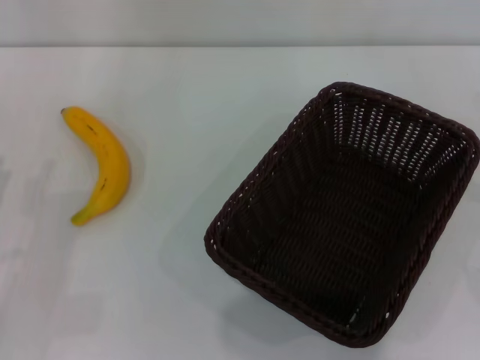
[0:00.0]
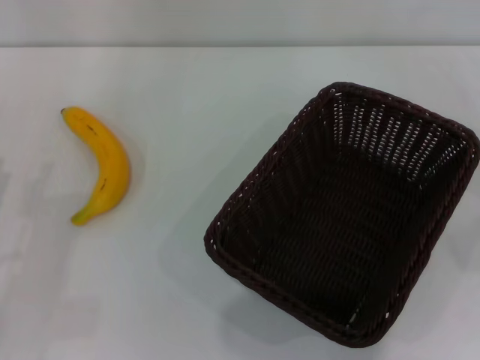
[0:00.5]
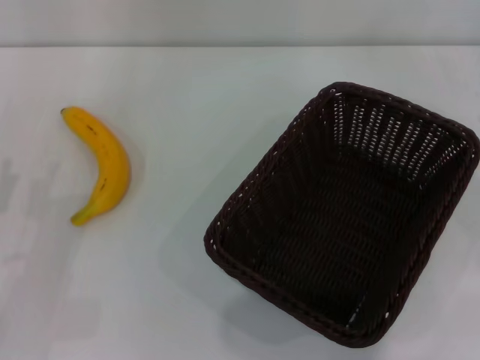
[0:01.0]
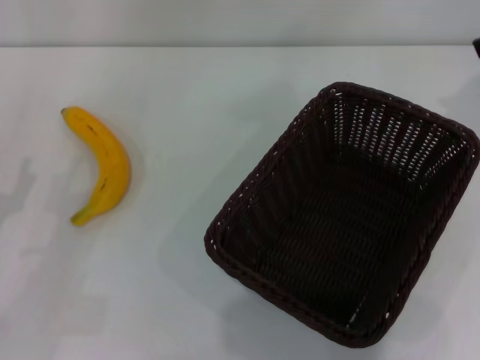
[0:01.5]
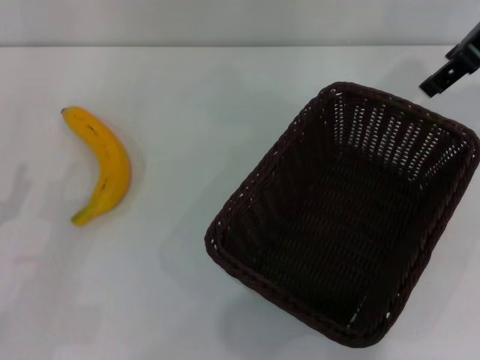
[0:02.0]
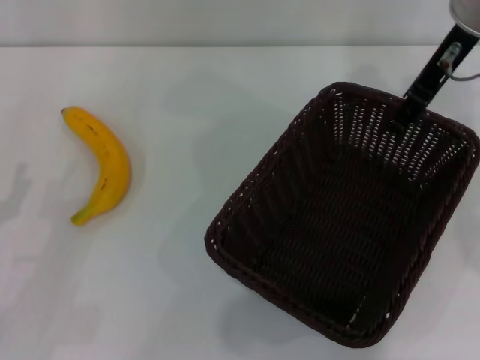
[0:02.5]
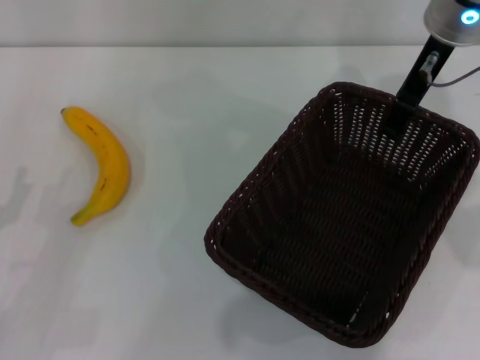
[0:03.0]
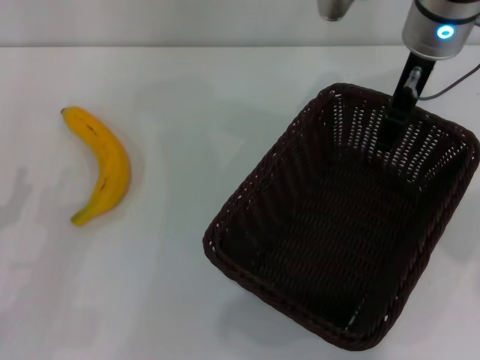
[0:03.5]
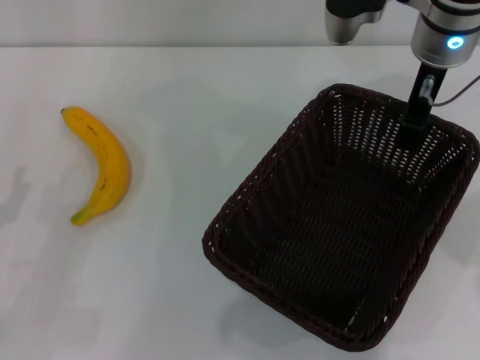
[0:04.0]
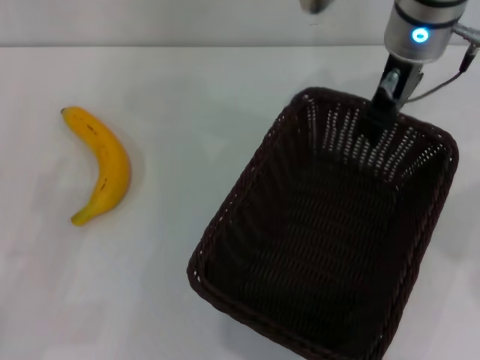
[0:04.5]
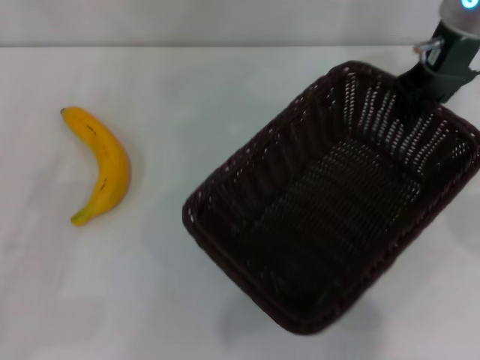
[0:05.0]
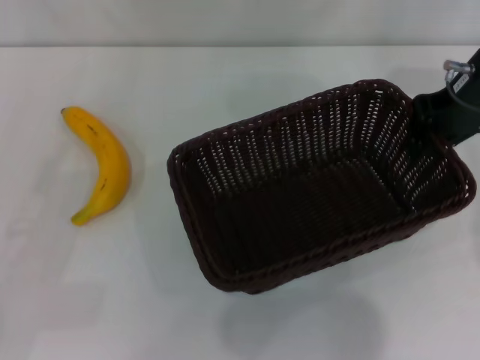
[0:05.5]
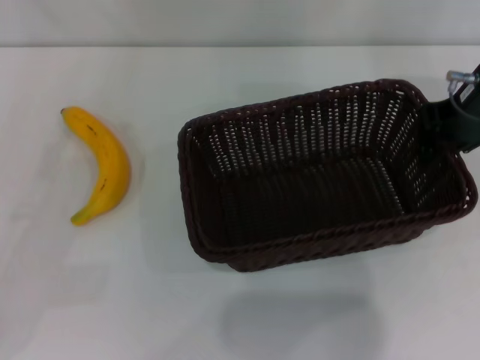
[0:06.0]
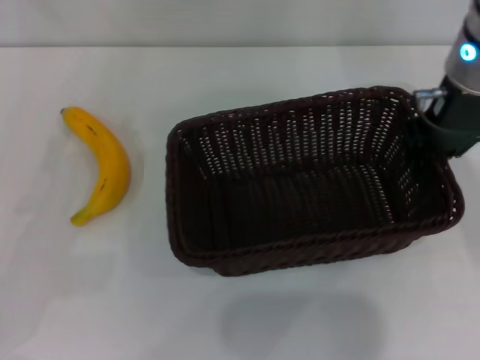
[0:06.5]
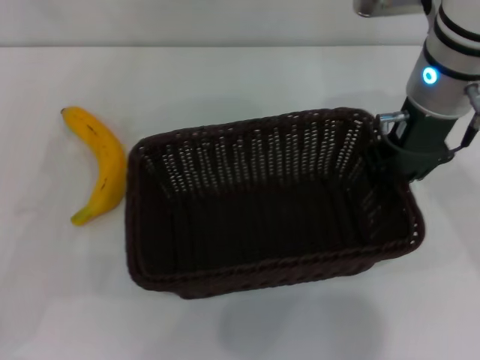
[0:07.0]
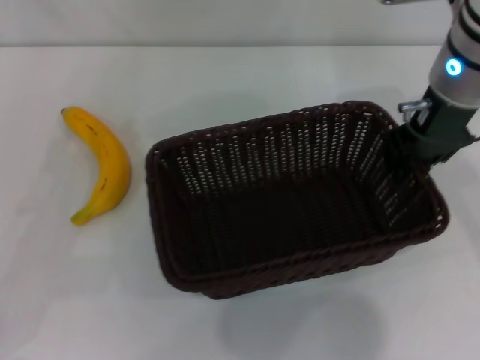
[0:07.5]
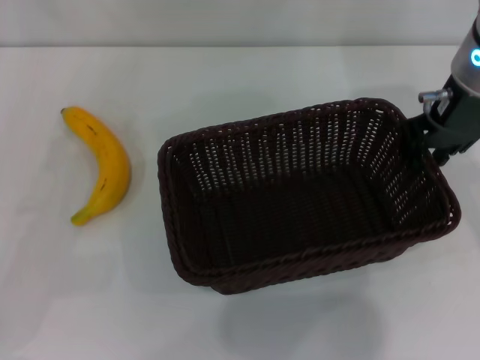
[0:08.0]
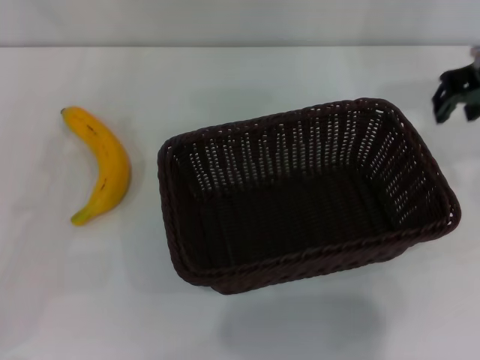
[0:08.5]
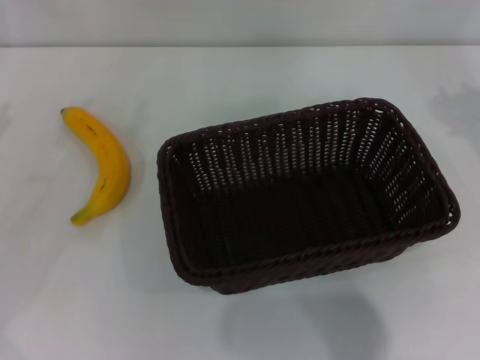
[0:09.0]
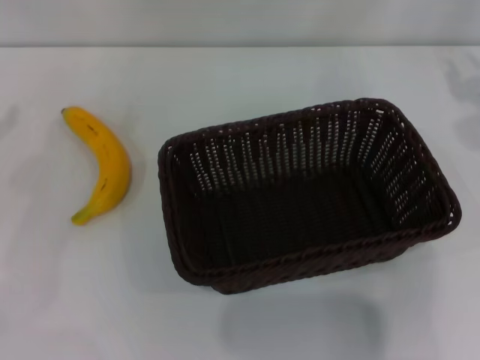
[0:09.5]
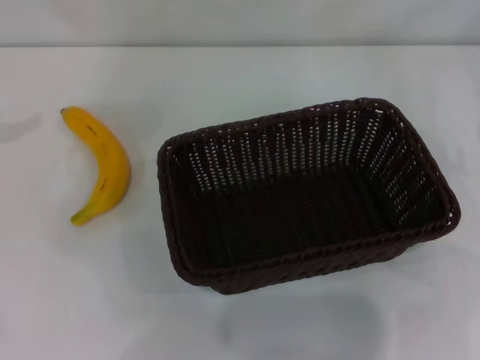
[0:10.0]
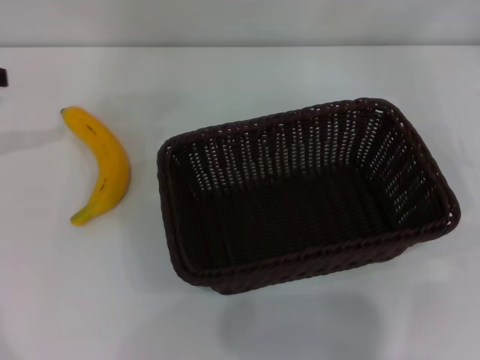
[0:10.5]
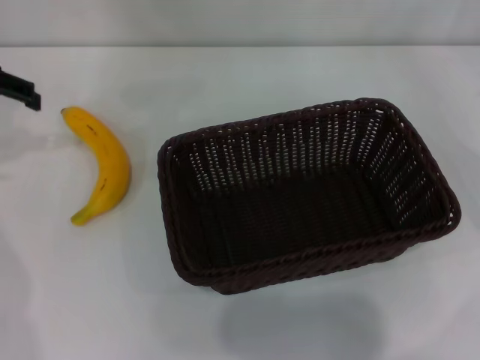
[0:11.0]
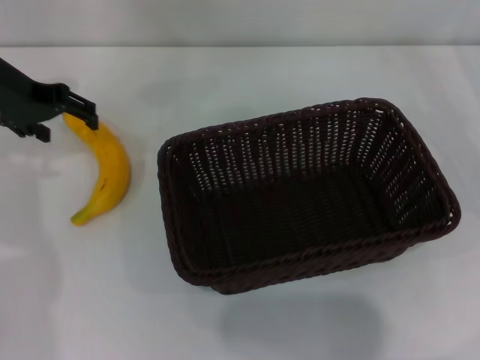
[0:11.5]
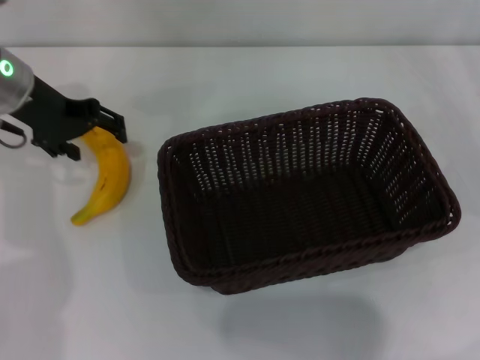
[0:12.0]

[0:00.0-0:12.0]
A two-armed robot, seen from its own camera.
Step, 0:00.0 to 0:04.5: Pick up the dark basket with the right gripper.
Step, 0:05.5 to 0:08.0: Place the dark basket in the center of view with the right gripper.
0:00.0 to 0:02.0: The right gripper shifts some 35 cm upward, forward and to the left.
0:02.0 to 0:04.0: The right gripper heads to the left and downward, covering roughly 10 cm.
0:04.0 to 0:06.0: The left gripper goes approximately 10 cm upward and forward. The right gripper goes approximately 5 cm to the right, and closes its fingers.
0:08.0 to 0:10.0: The right gripper goes approximately 20 cm to the right.
0:10.0 to 0:12.0: The left gripper is displaced to the right, downward and forward by roughly 20 cm.

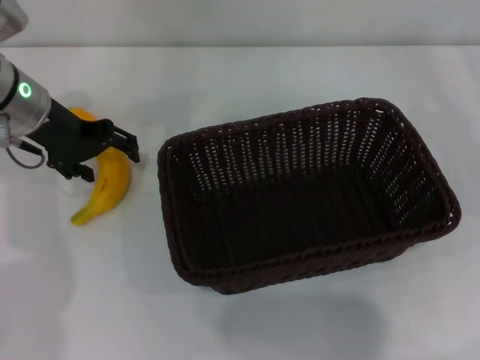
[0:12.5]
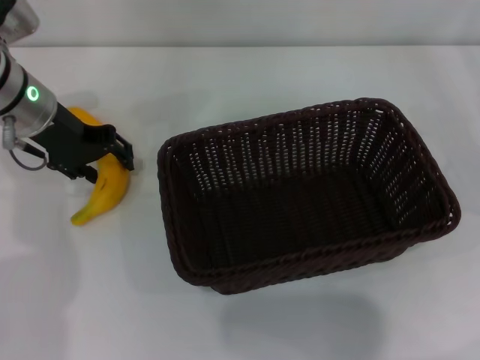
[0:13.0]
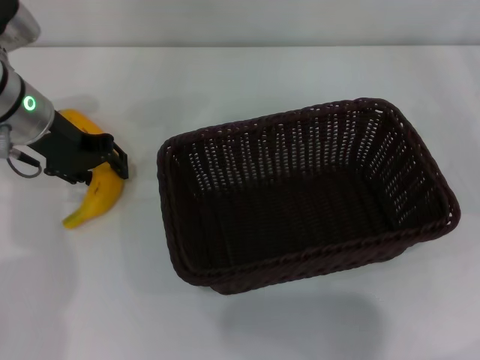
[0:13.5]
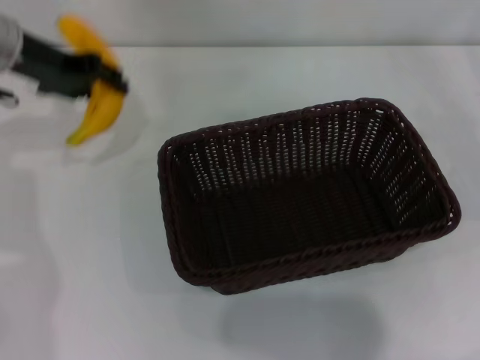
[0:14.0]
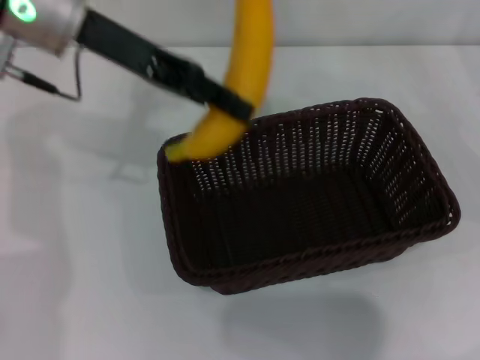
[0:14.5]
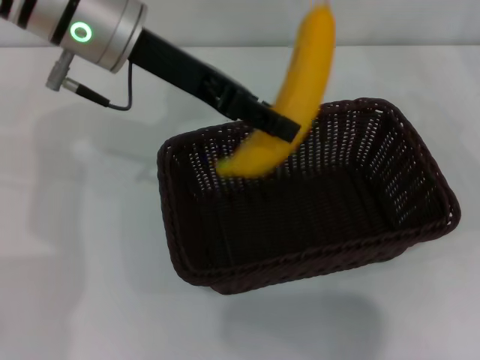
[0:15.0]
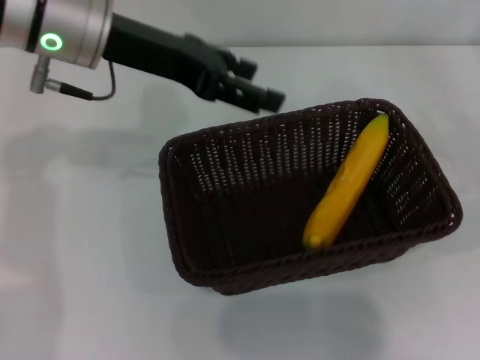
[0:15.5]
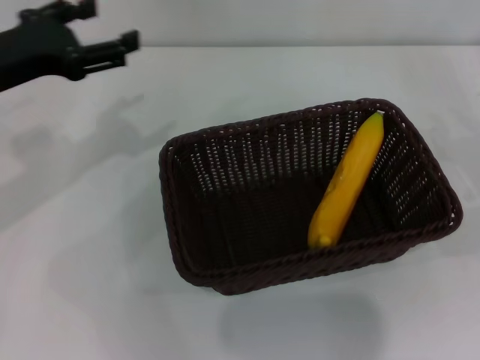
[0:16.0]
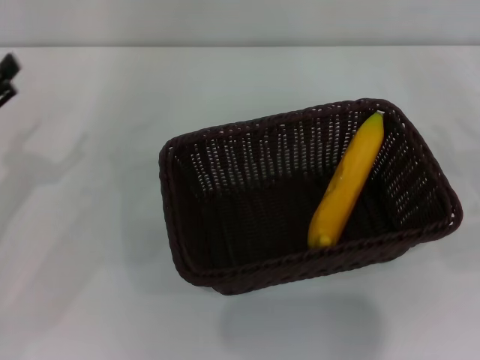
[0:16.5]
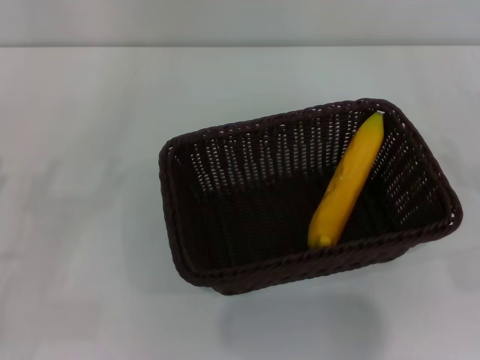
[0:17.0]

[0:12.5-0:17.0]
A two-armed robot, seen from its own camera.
Step, 0:14.0 to 0:15.5: Place the banana into the dark basket with the left gripper.
0:12.5 to 0:14.5: The left gripper heads upward and to the right, covering about 10 cm, and closes up.
0:14.5 to 0:17.0: The right gripper shifts roughly 10 cm backward and downward, and opens its fingers; the left gripper moves downward, backward and to the left, approximately 35 cm, and opens up.

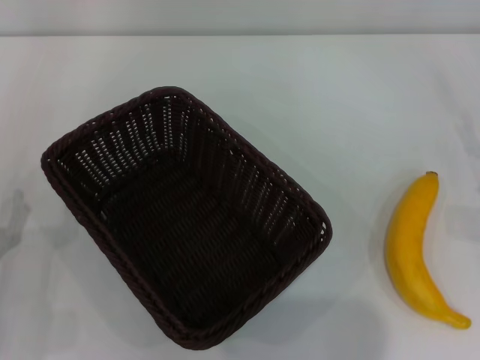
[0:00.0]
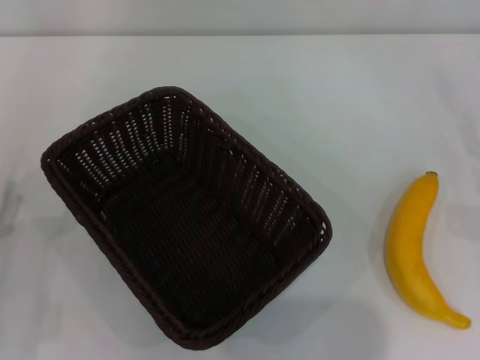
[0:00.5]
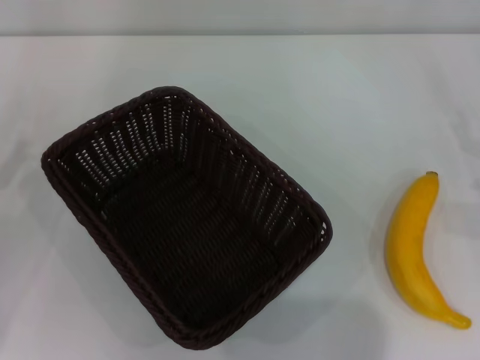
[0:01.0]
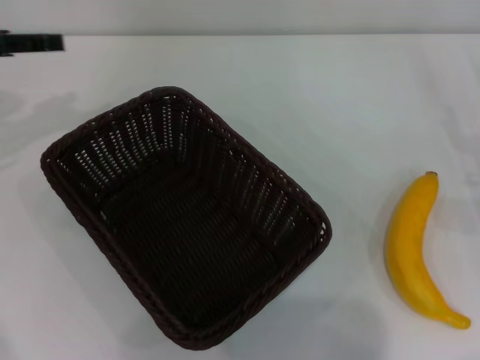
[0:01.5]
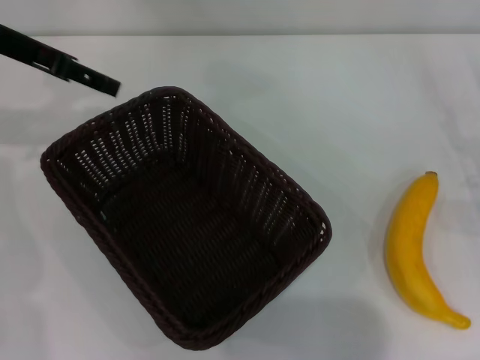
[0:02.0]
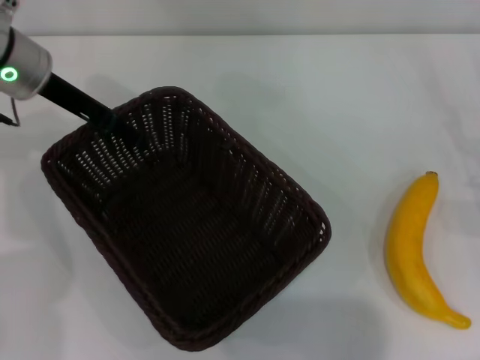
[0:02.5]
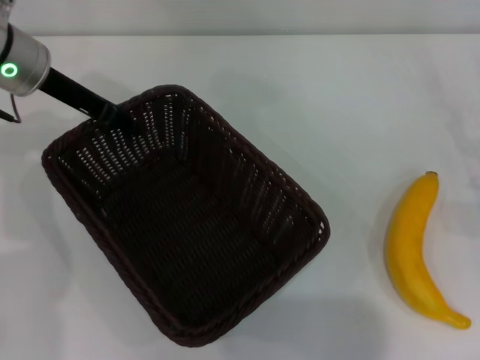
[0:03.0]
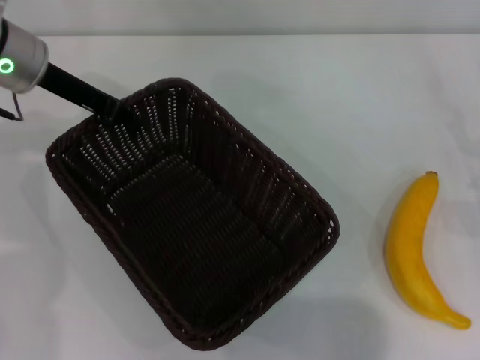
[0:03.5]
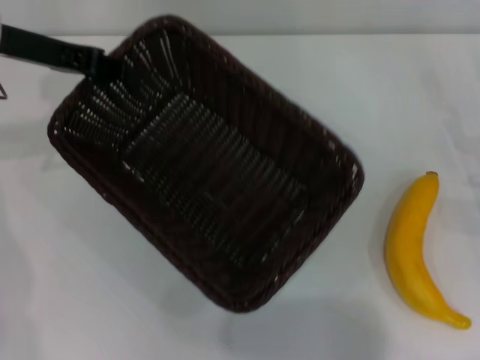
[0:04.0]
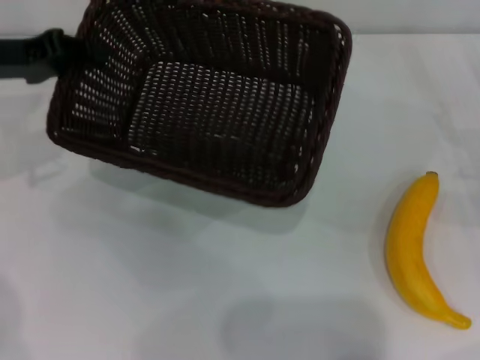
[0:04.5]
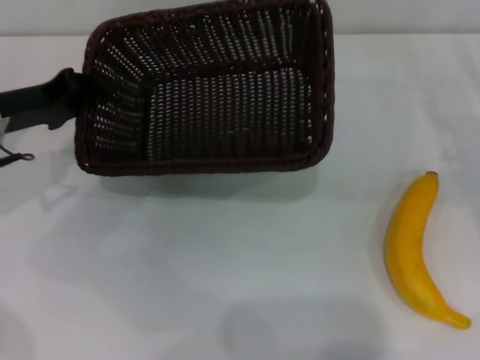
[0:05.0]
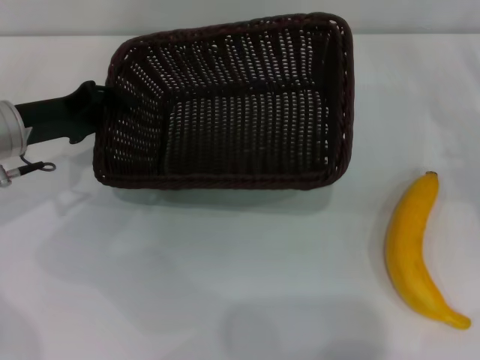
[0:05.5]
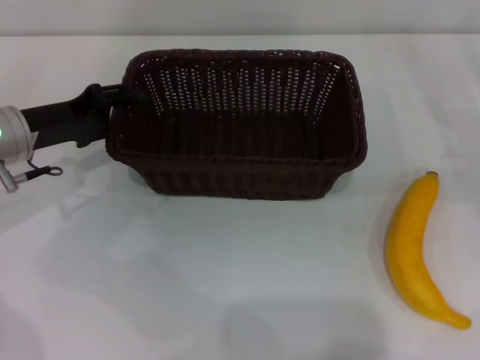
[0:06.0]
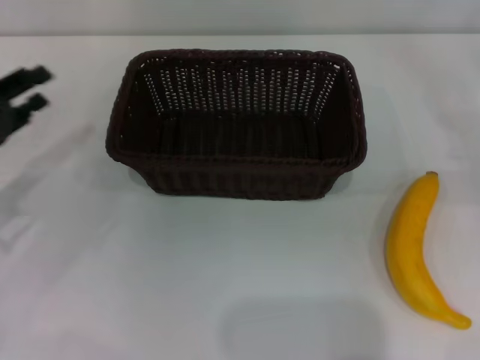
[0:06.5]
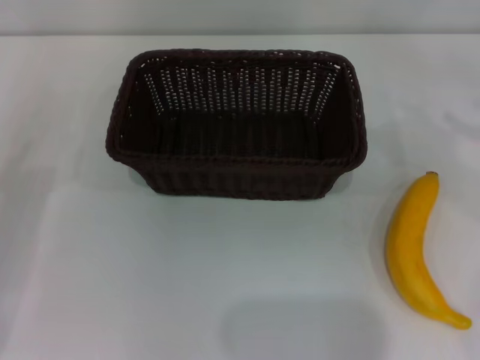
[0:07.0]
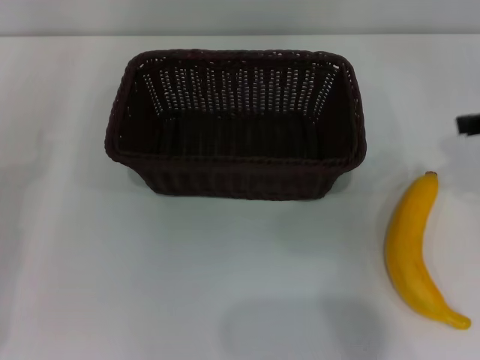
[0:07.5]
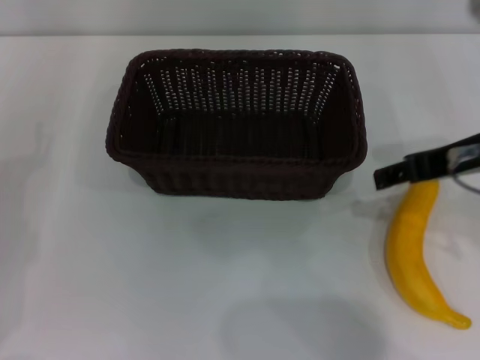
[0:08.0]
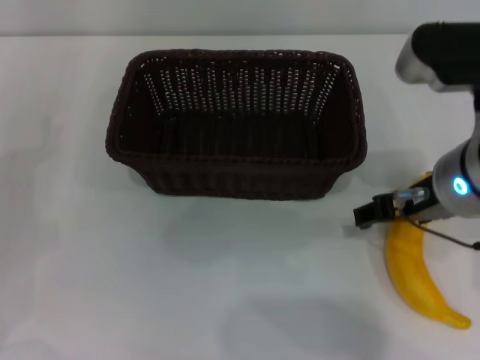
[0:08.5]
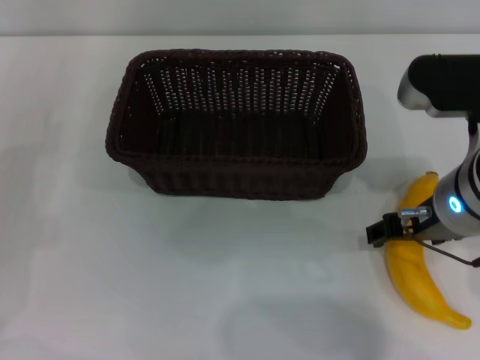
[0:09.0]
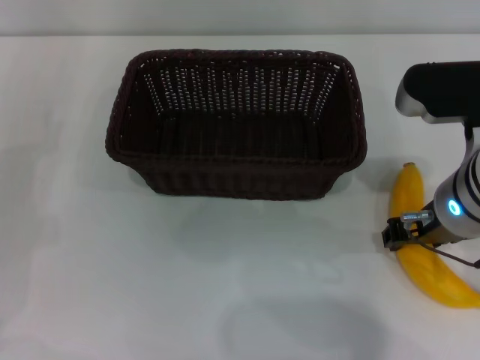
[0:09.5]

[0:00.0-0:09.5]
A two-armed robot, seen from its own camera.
Step, 0:00.0 to 0:03.5: Pick up the dark basket with the left gripper.
Step, 0:04.0 to 0:06.0: Place the dark basket in the center of view with the left gripper.
0:00.0 to 0:02.0: The left gripper moves forward and upward, about 35 cm.
0:02.0 to 0:04.0: The left gripper closes up.
0:04.0 to 0:05.5: The left gripper shifts roughly 10 cm downward.
0:05.5 to 0:07.5: The left gripper travels backward and to the left by some 15 cm, and opens its fingers; the right gripper moves upward and to the left, roughly 20 cm.
0:07.5 to 0:09.5: The right gripper moves to the left and downward, about 15 cm, and closes.
